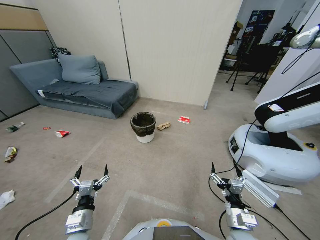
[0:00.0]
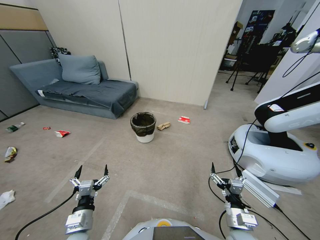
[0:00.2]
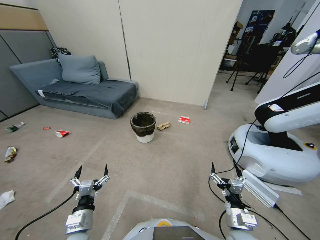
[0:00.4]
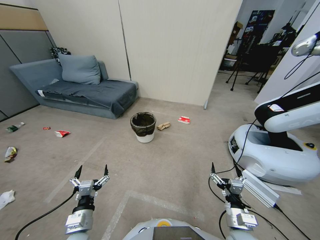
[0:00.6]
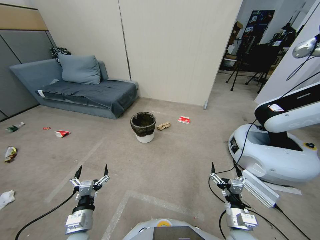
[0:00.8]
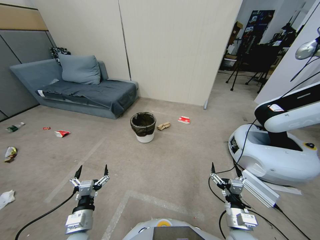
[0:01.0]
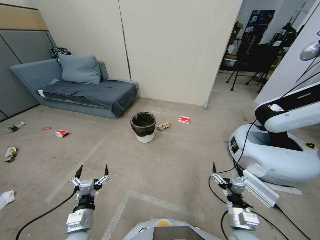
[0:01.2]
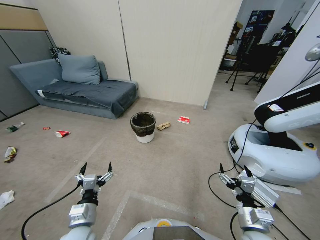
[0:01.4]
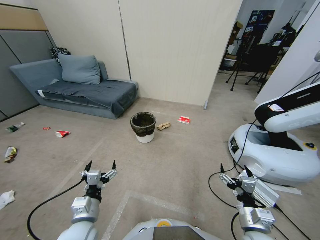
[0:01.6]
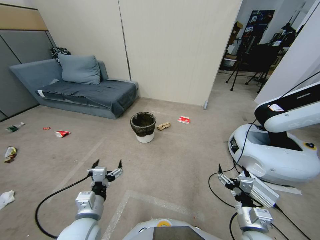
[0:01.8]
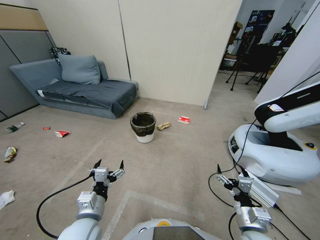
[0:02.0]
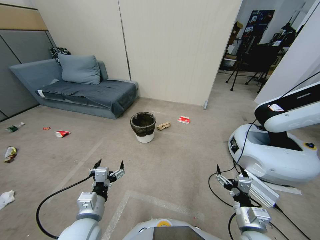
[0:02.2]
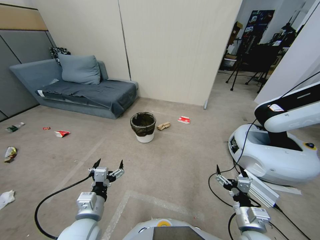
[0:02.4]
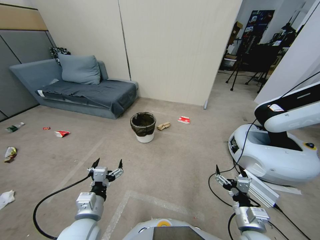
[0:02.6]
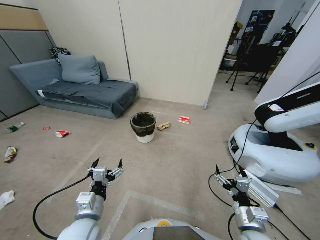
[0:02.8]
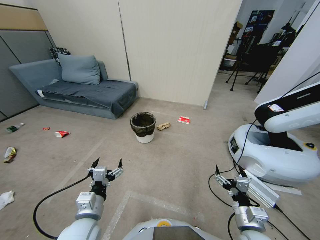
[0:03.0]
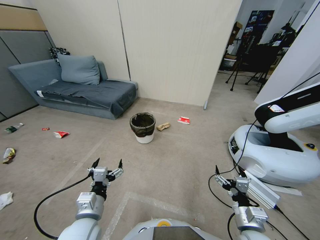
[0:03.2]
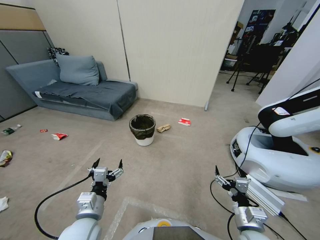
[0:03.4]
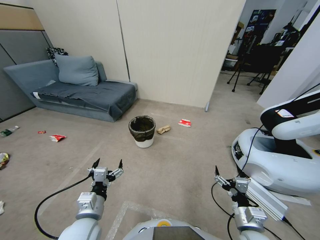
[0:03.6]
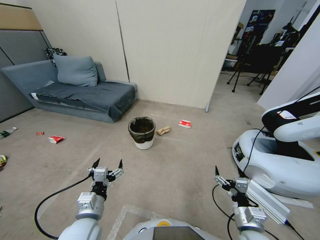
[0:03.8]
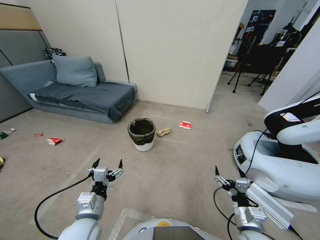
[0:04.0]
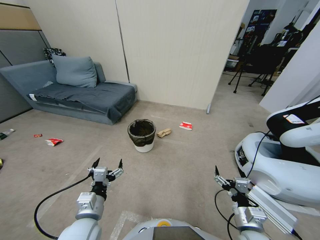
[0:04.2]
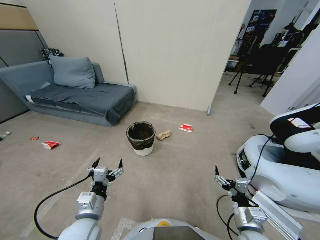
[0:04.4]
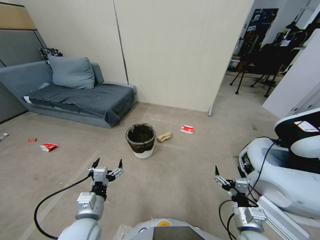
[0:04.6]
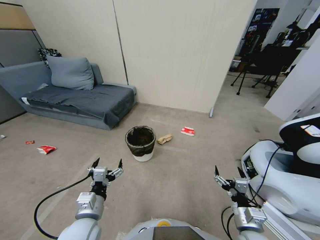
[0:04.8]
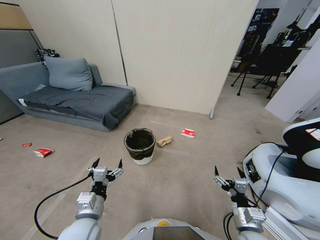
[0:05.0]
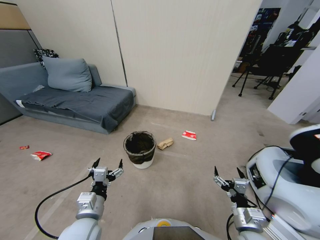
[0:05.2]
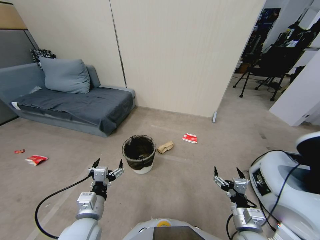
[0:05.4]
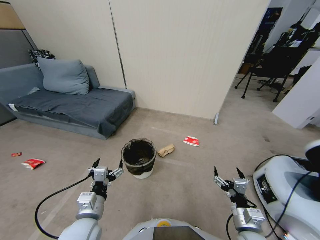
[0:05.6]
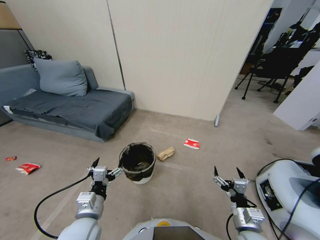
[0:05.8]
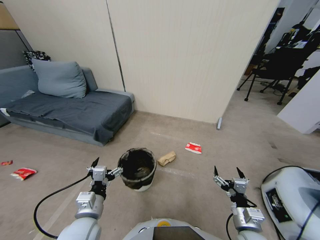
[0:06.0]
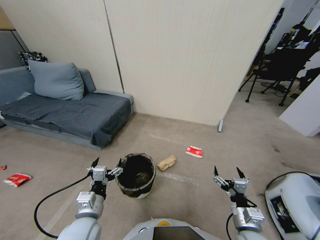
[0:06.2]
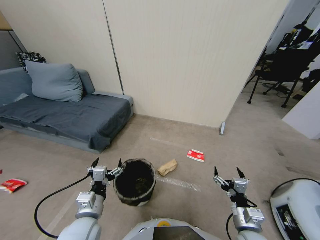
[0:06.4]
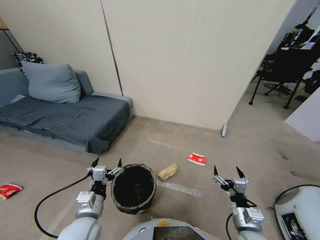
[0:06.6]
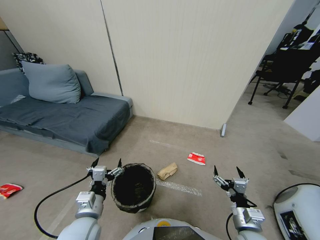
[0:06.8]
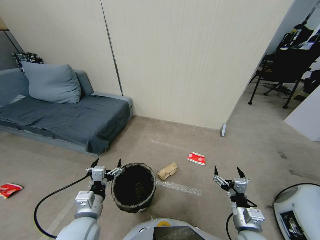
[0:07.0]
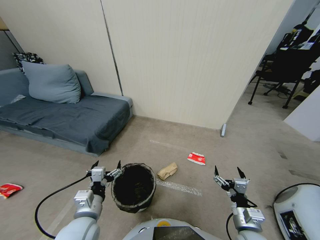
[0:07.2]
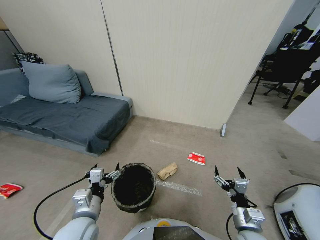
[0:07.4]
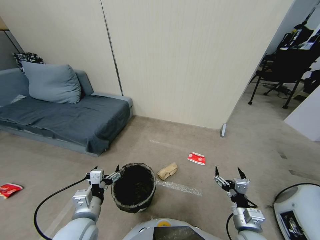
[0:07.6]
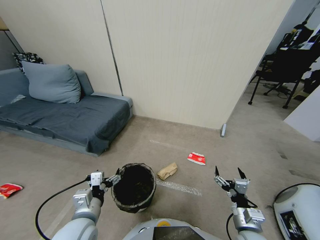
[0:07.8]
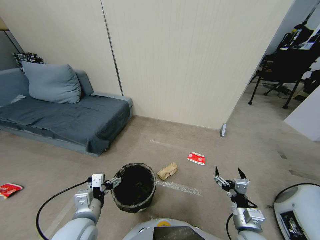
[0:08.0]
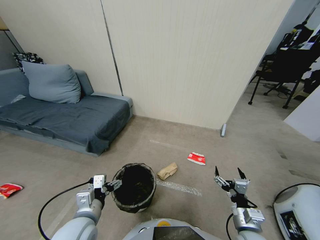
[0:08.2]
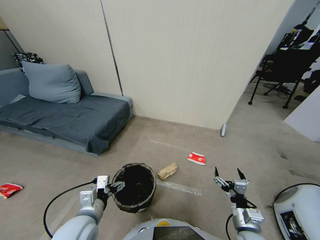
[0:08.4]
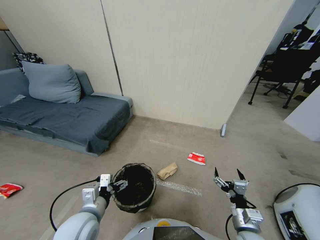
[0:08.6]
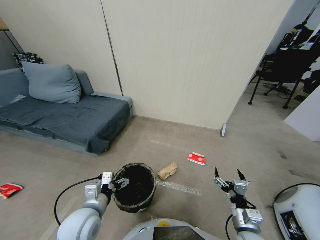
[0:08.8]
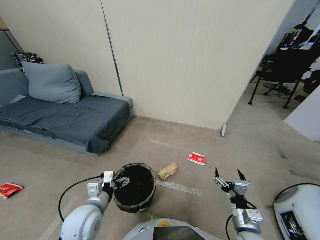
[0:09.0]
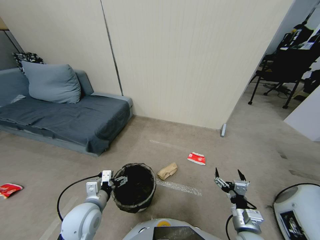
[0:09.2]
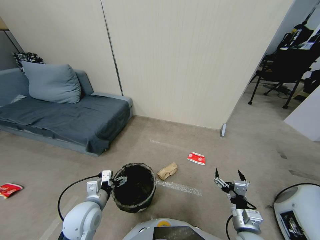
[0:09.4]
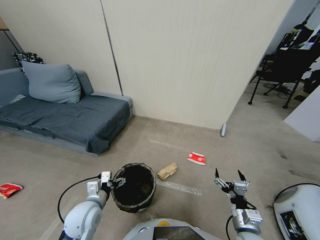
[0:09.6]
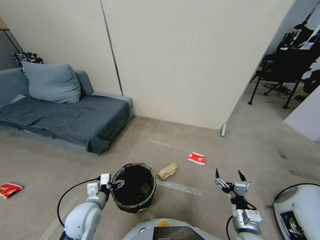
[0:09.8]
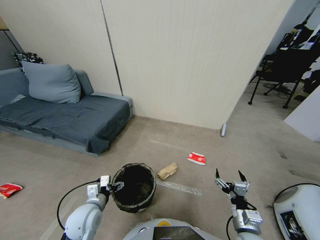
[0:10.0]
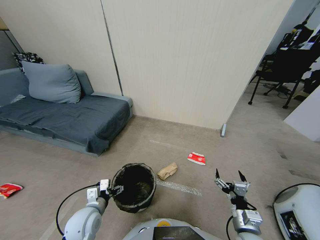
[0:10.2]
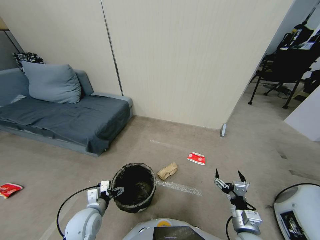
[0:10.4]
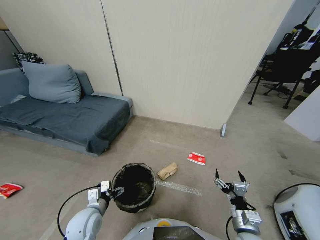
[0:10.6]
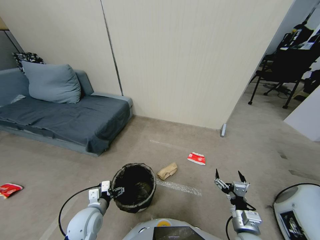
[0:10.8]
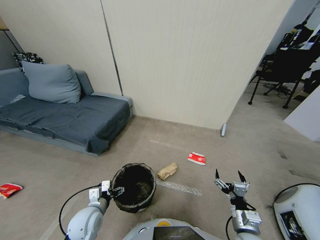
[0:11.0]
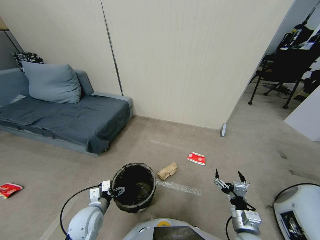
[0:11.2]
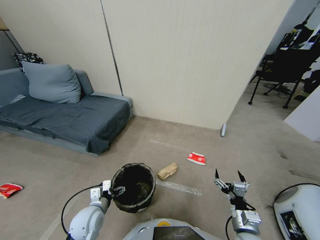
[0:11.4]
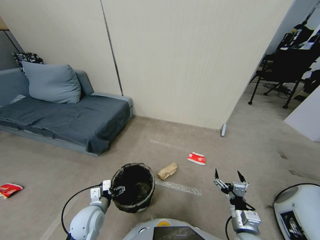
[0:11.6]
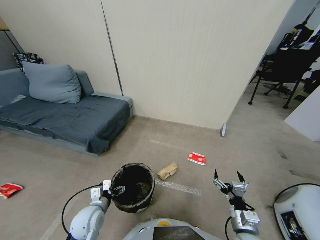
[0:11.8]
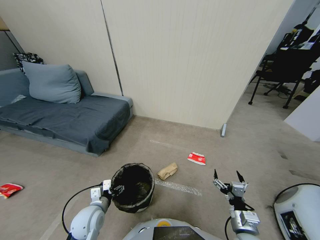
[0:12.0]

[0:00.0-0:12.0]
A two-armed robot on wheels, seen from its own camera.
Task of the whole recording: Pick up the trash bin, then pick up the garbage from the floor and place it into the trash bin.
0:01.6 to 0:03.0: Neither gripper changes place.
0:07.6 to 0:09.0: There are only small adjustments of the grippers.
0:09.0 to 0:10.4: The left gripper shifts about 5 cm downward.
0:10.4 to 0:12.0: The left gripper closes.

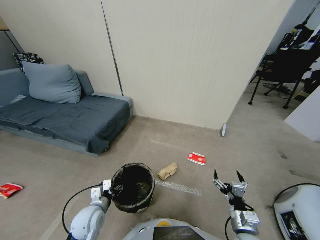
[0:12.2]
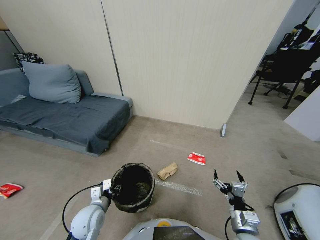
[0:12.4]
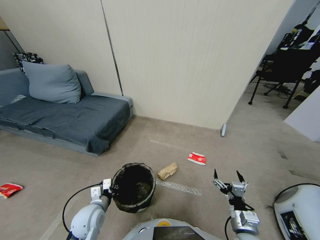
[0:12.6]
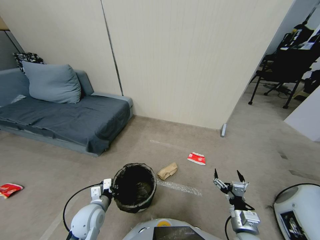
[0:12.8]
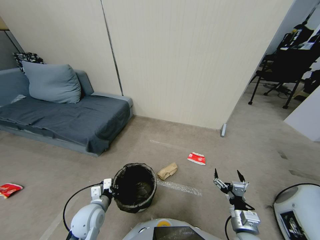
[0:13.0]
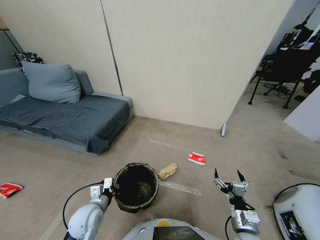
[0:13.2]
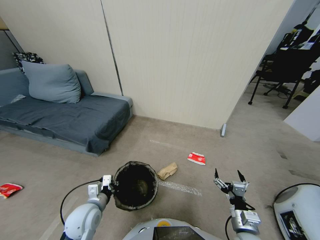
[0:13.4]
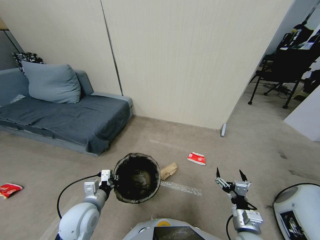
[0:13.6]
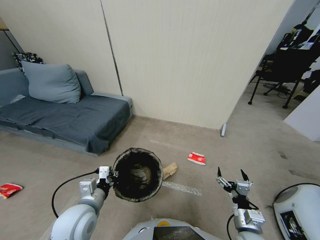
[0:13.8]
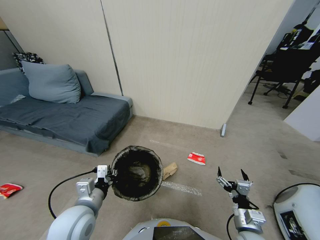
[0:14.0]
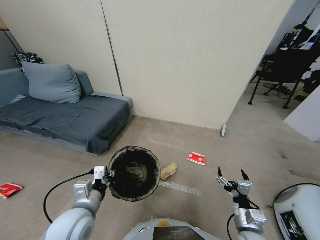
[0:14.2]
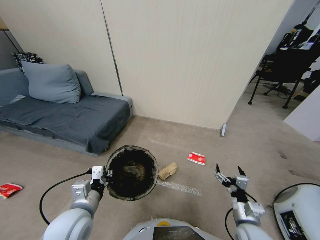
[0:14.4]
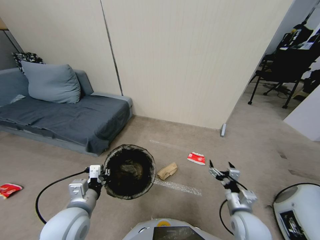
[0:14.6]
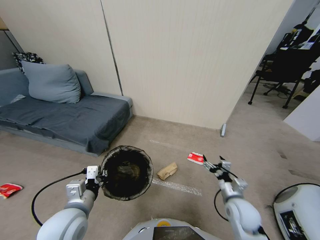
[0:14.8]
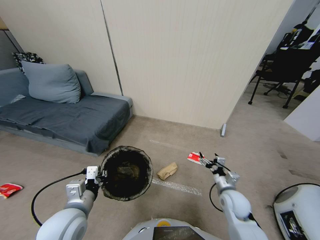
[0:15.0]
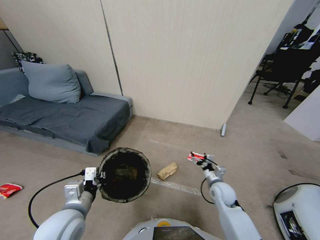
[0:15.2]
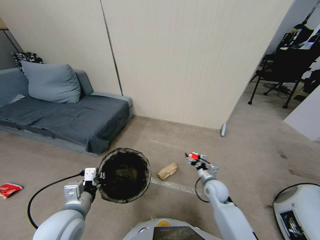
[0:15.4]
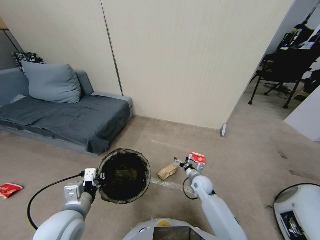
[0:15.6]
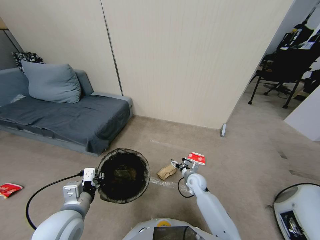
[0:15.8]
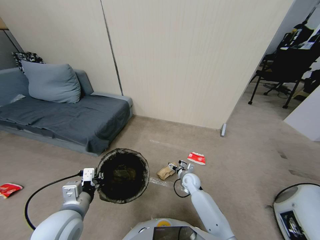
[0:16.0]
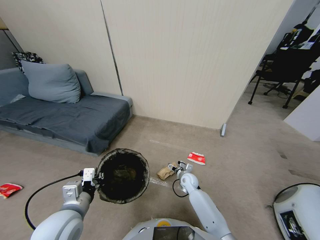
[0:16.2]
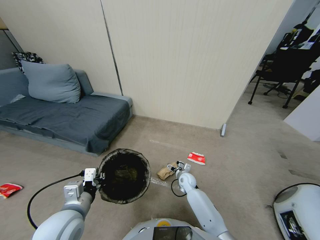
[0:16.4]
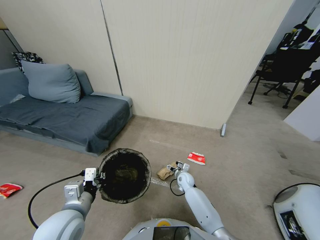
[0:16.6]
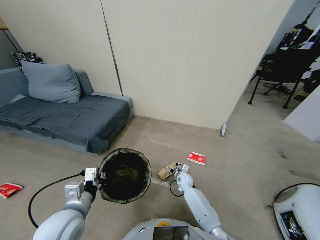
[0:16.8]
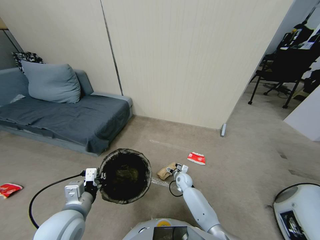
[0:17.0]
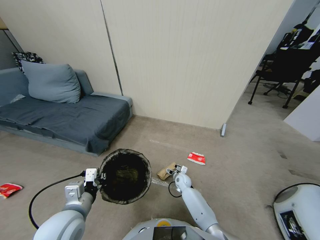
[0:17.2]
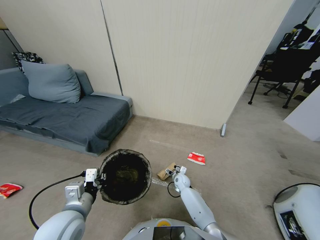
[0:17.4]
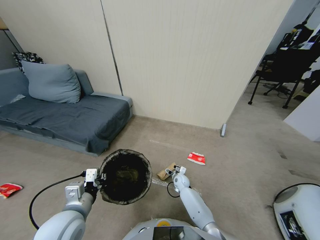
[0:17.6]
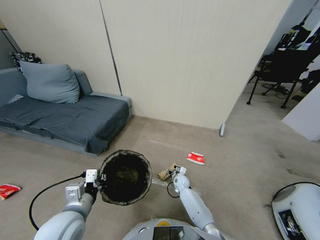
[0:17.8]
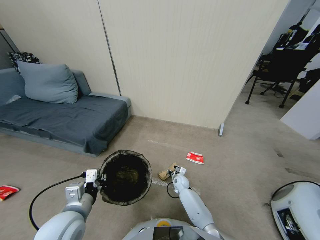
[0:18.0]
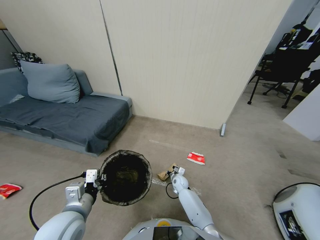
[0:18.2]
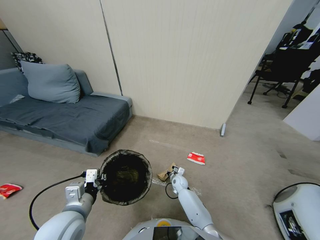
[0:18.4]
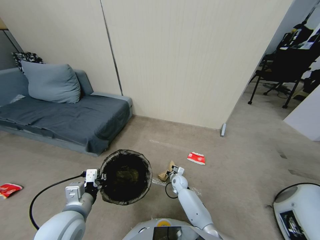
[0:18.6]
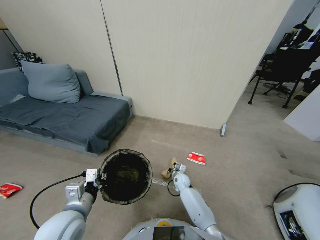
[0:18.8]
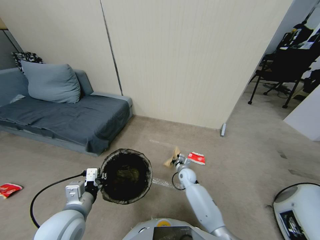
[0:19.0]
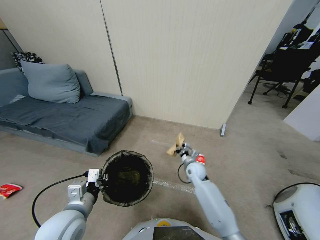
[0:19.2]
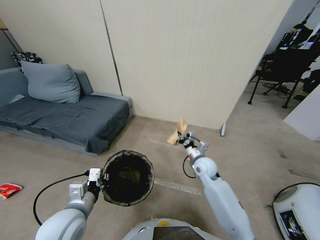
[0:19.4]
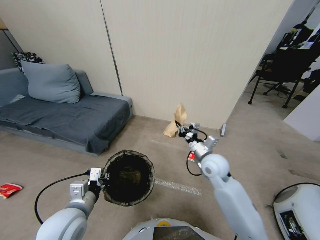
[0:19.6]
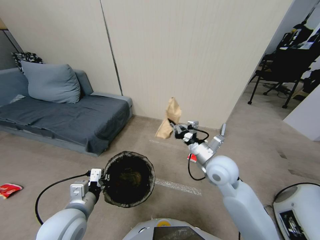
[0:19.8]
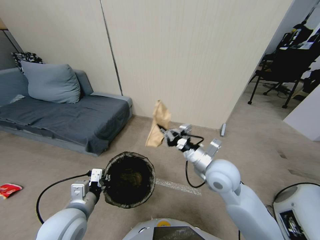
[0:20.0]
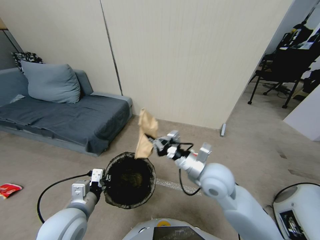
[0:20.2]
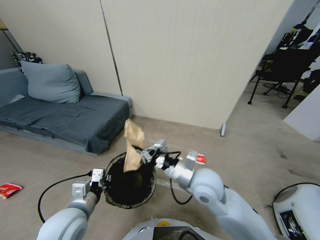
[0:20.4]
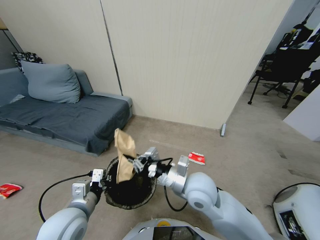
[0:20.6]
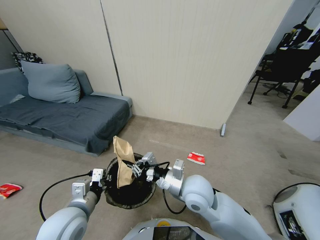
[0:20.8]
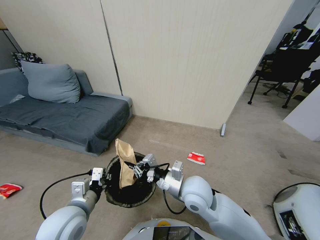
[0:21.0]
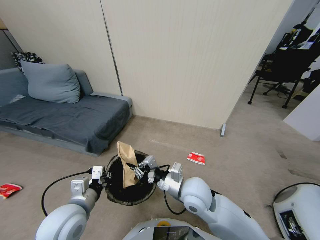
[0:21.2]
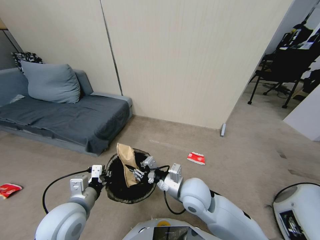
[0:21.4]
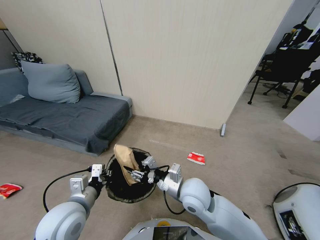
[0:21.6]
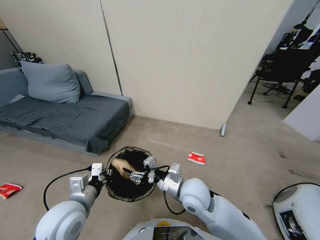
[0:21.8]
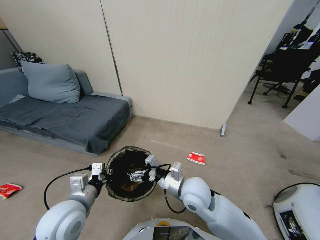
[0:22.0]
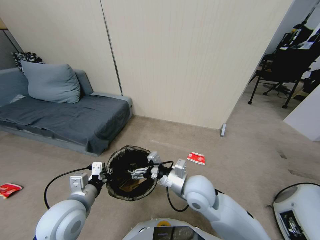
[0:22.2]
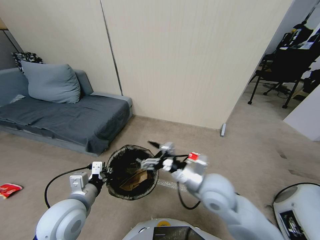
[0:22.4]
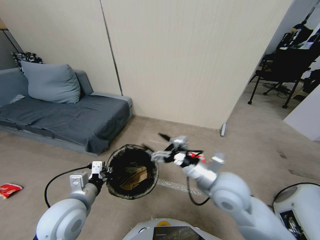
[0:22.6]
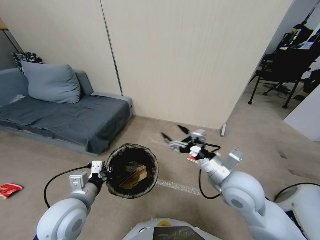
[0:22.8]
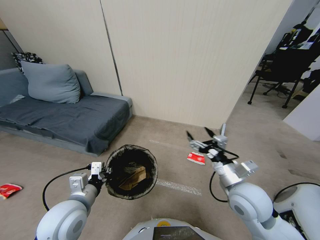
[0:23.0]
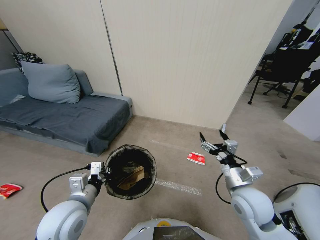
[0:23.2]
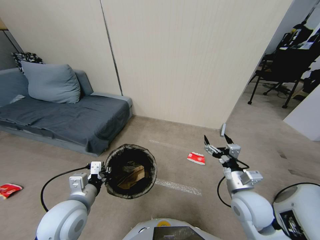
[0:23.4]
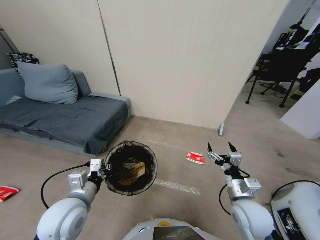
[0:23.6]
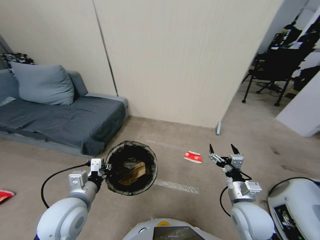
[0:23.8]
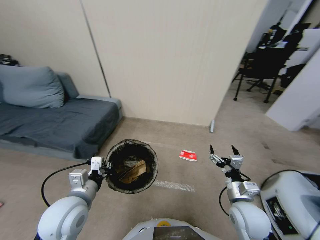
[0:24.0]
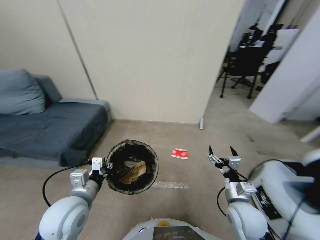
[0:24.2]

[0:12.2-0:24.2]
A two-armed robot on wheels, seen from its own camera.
Task of the whole recording: Pick up the trash bin, then pick up the garbage from the floor and place it into the trash bin.
0:12.2 to 0:13.8: The left gripper is displaced upward by about 10 cm, and closes up.
0:13.8 to 0:15.2: The right gripper goes about 20 cm forward.
0:15.2 to 0:16.6: The right gripper travels downward, to the left and forward by approximately 20 cm.
0:16.6 to 0:18.2: The right gripper closes its fingers.
0:18.2 to 0:19.8: The right gripper shifts roughly 35 cm upward.
0:19.8 to 0:21.2: The right gripper goes about 10 cm to the left and downward.
0:21.2 to 0:22.6: The right gripper shifts approximately 15 cm to the right and upward, and opens its fingers.
0:22.6 to 0:24.2: The right gripper travels downward by roughly 10 cm.
